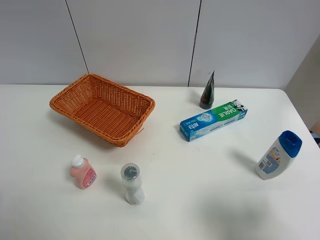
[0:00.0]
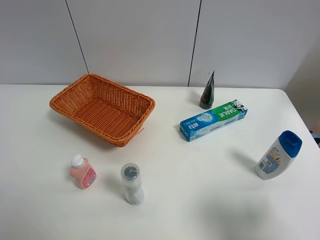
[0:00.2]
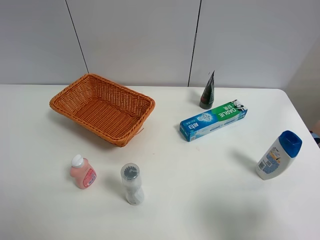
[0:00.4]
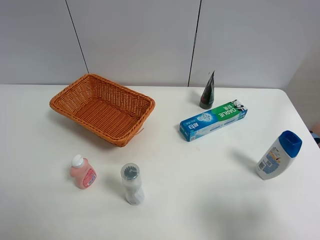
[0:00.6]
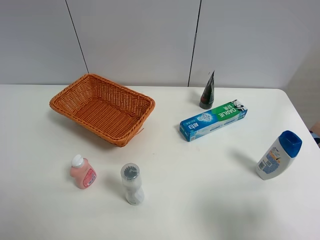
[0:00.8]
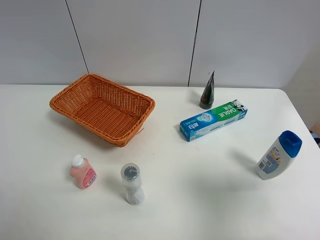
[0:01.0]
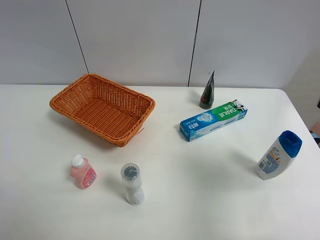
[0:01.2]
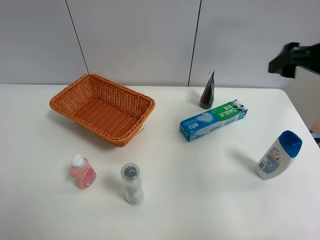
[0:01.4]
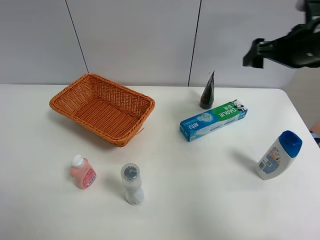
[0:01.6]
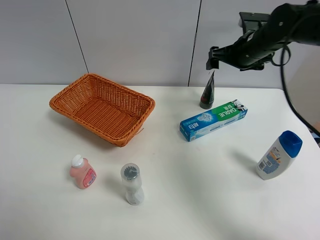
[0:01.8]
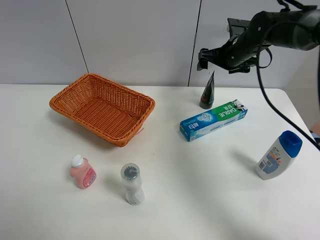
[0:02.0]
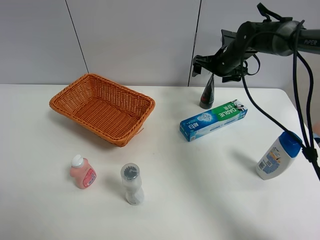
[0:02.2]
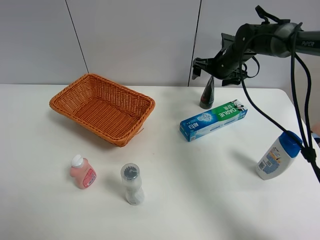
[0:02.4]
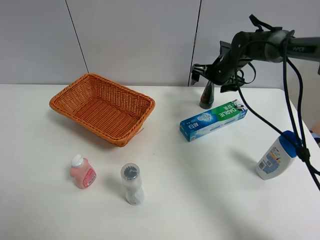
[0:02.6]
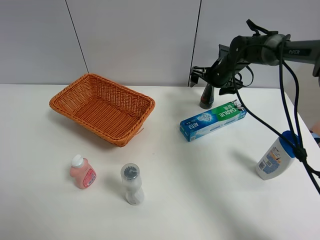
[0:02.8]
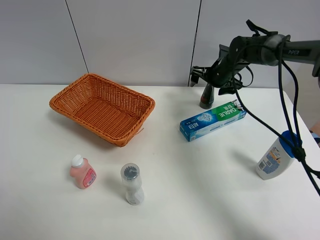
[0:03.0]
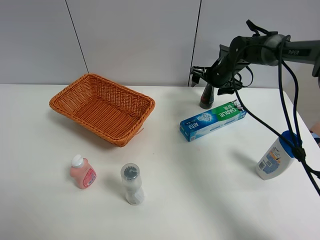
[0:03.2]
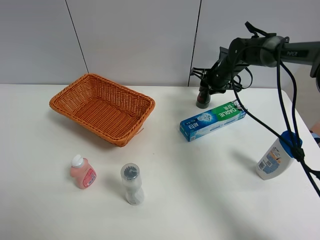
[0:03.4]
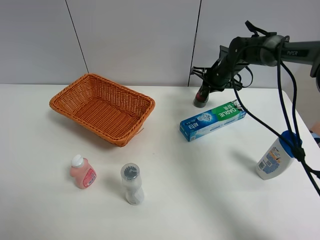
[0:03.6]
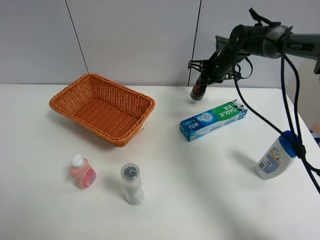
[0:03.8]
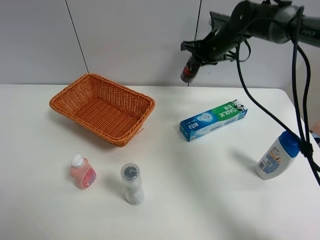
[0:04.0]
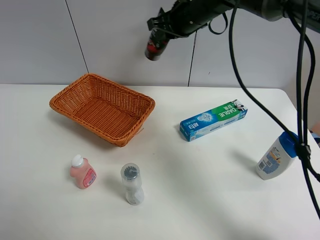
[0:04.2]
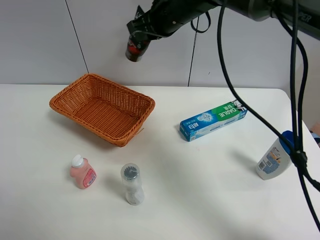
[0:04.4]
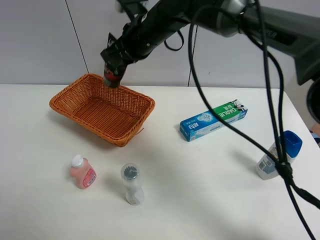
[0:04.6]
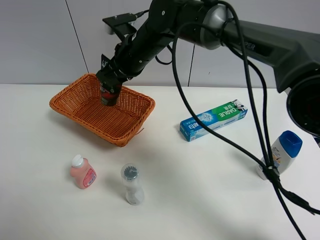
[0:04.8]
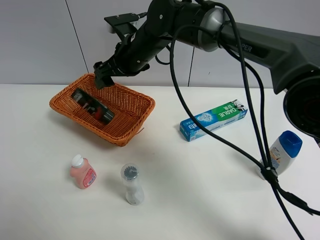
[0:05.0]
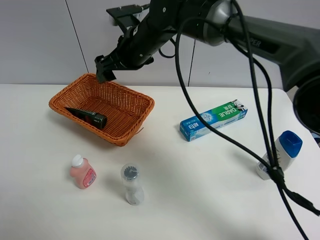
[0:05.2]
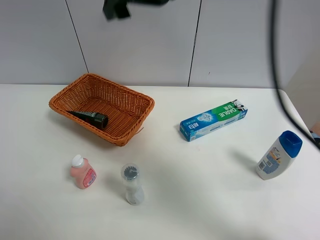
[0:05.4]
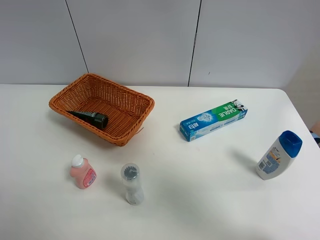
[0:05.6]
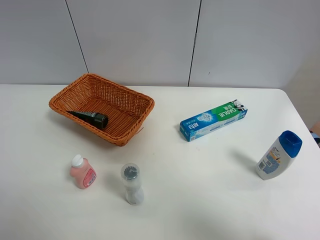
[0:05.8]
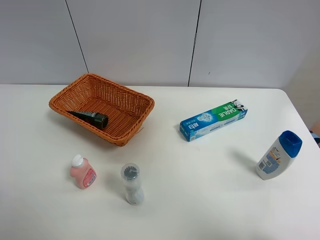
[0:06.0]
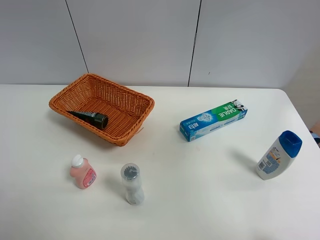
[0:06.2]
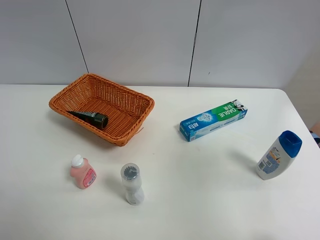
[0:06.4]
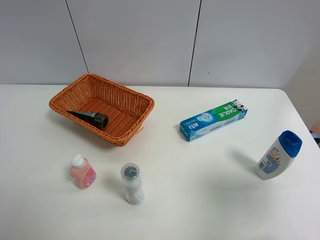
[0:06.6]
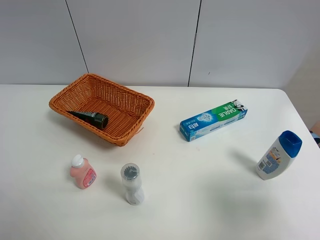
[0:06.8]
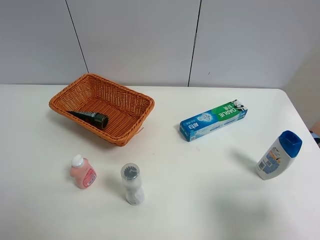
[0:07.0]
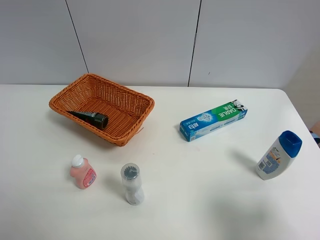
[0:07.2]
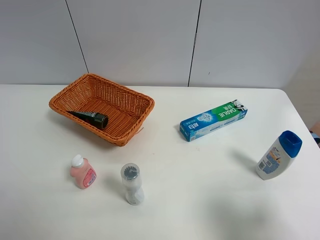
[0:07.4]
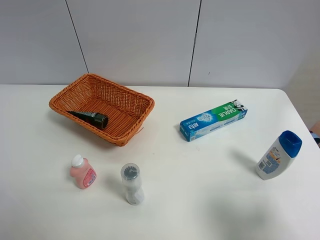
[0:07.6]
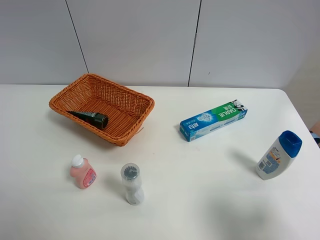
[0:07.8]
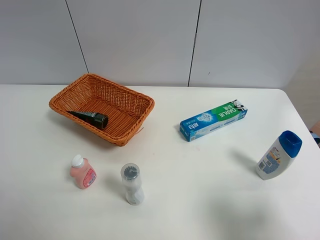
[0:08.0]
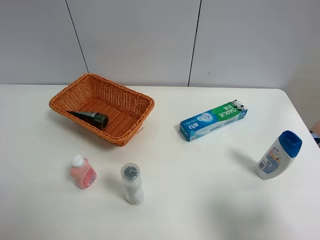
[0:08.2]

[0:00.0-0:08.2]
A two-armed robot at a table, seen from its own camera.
Task of the whole recording: Place the object closest to the toothpaste in the basket.
Step, 0:00.0 to 0:03.6: Grasp the soft facial cleanser with right gripper.
Step, 0:03.8 to 0:05.2: Place the soft facial cleanser in the basket with right gripper.
0:00.0 to 0:01.6: The right gripper shifts approximately 35 cm forward.
0:01.6 to 0:03.2: The right gripper goes some 20 cm downward, forward and to the left.
0:03.2 to 0:05.0: The right gripper is displaced to the left, upward and backward by approximately 25 cm, and closes, then opens again.
0:05.0 to 0:06.6: The right gripper heads to the right and backward, covering roughly 50 cm.
0:06.6 to 0:08.2: The right gripper goes some 5 cm downward.
